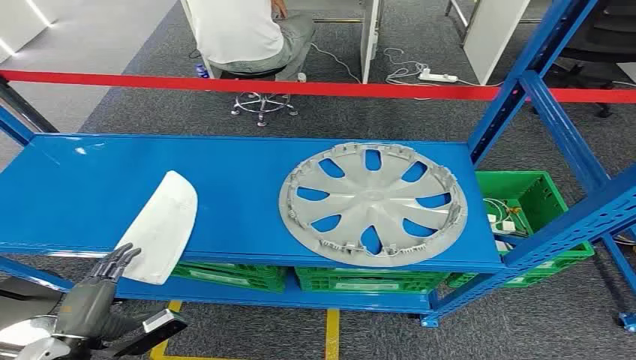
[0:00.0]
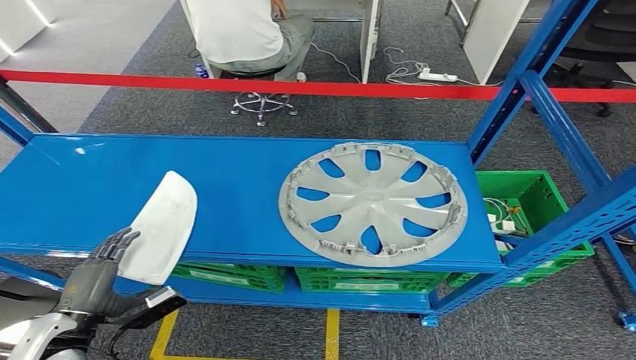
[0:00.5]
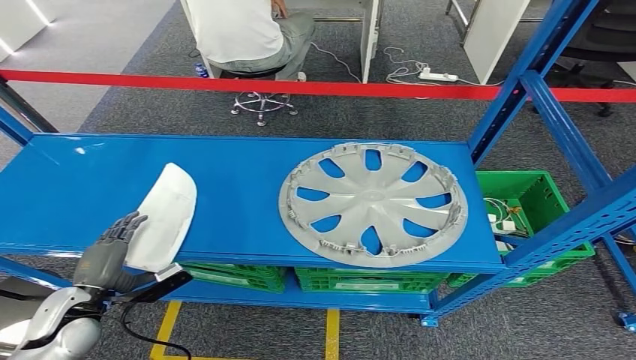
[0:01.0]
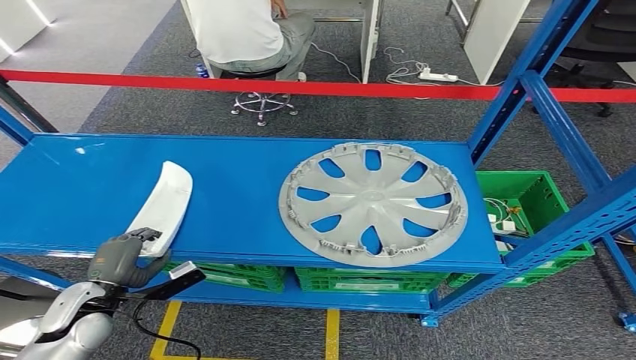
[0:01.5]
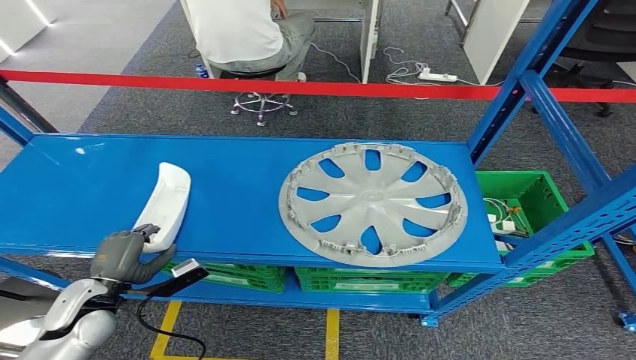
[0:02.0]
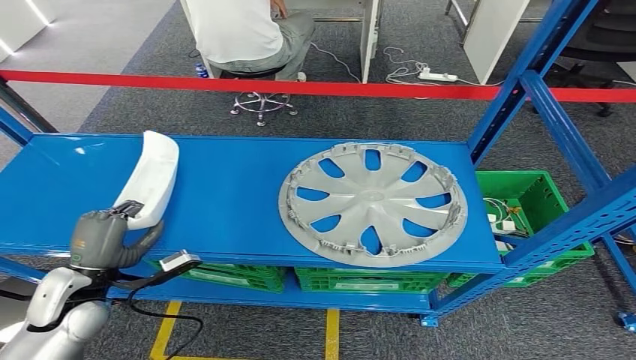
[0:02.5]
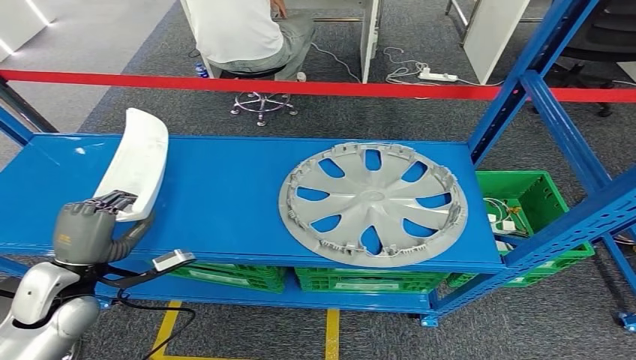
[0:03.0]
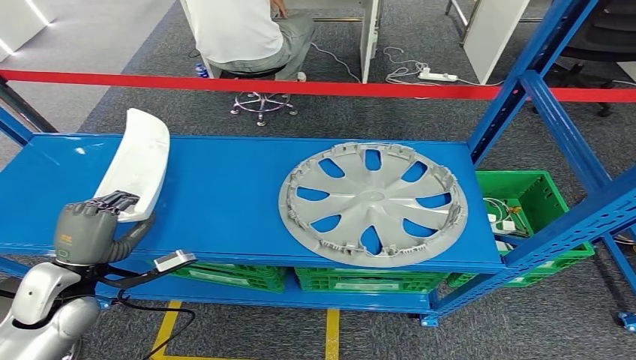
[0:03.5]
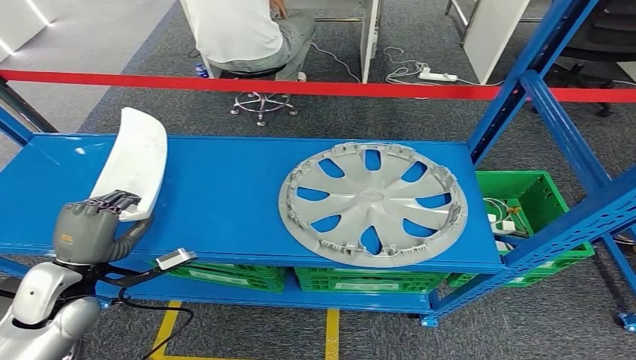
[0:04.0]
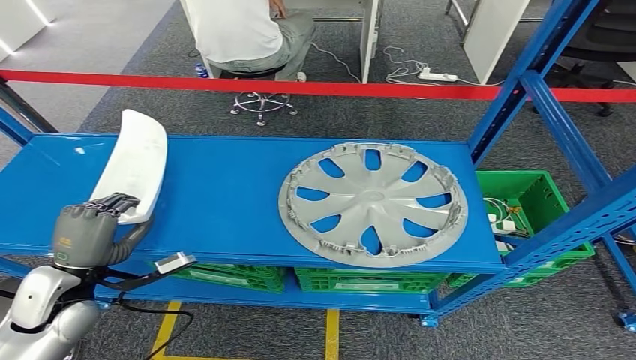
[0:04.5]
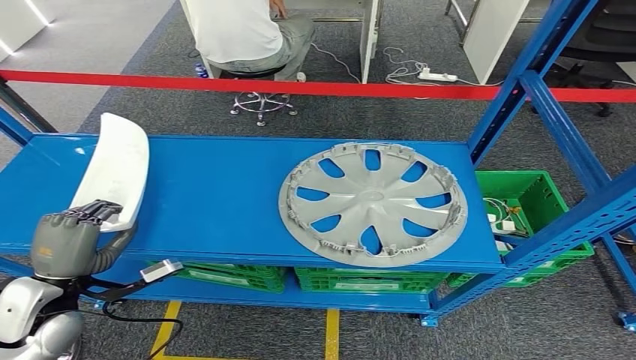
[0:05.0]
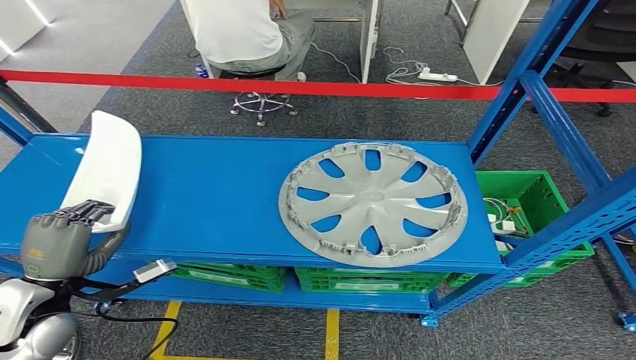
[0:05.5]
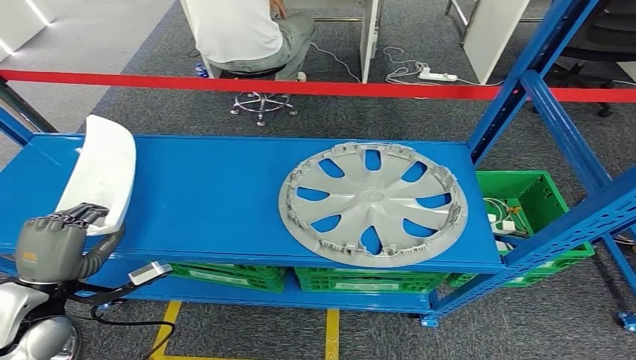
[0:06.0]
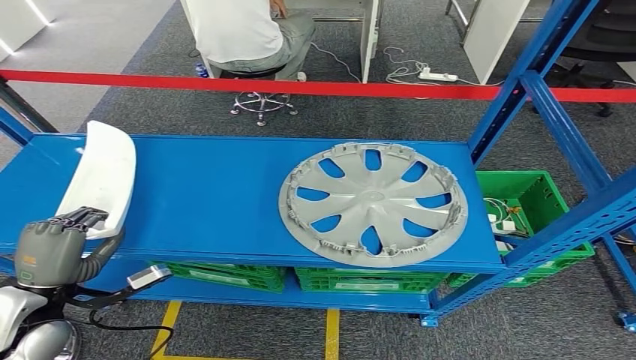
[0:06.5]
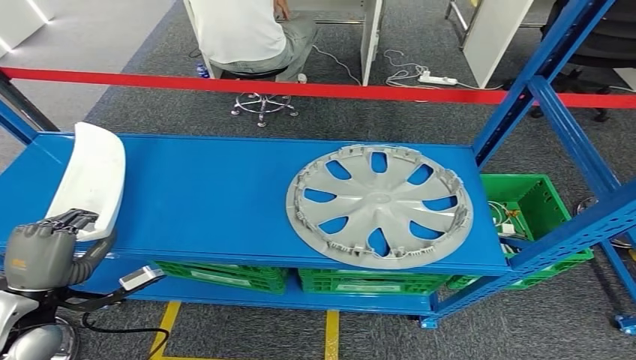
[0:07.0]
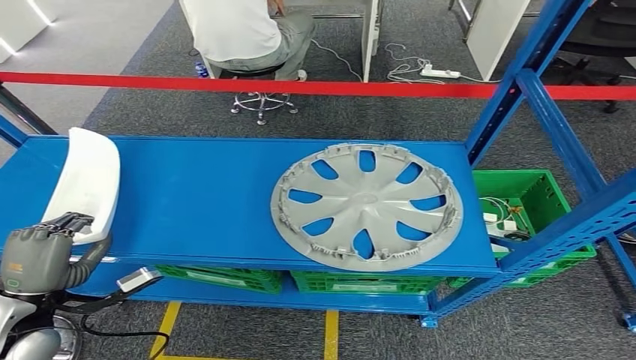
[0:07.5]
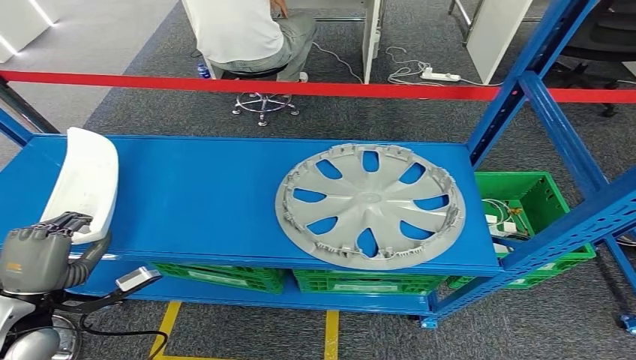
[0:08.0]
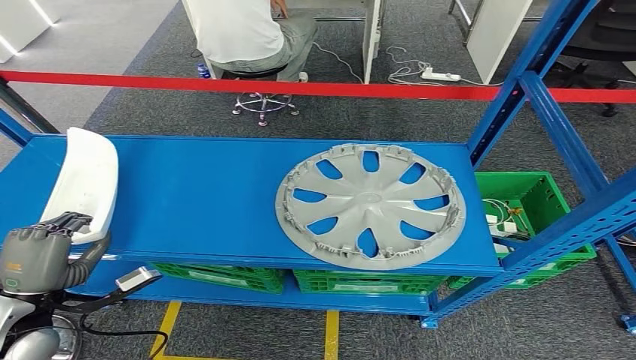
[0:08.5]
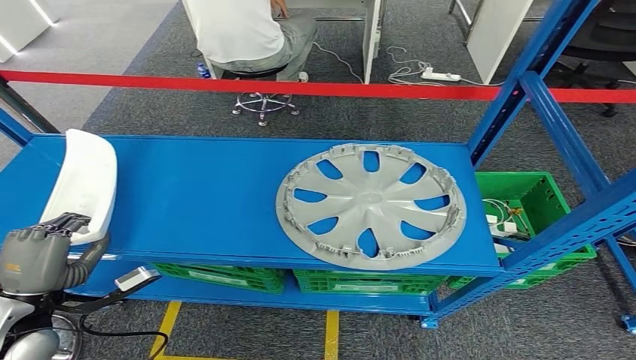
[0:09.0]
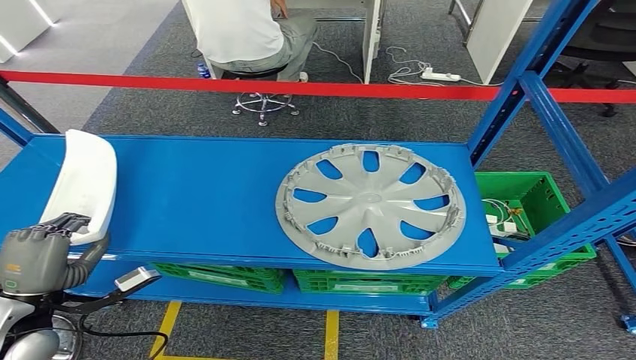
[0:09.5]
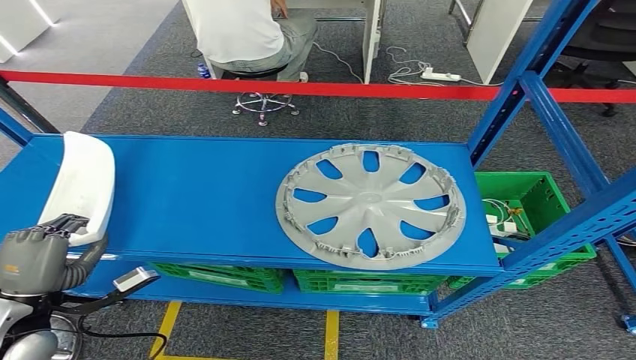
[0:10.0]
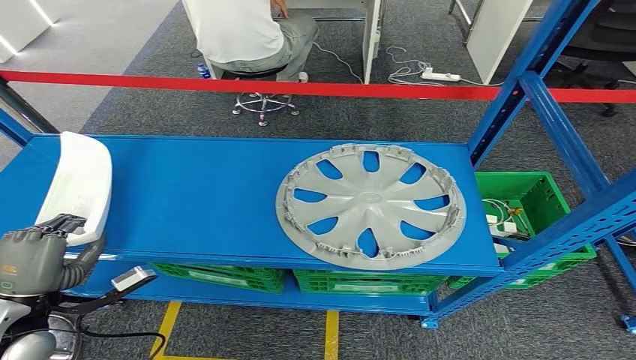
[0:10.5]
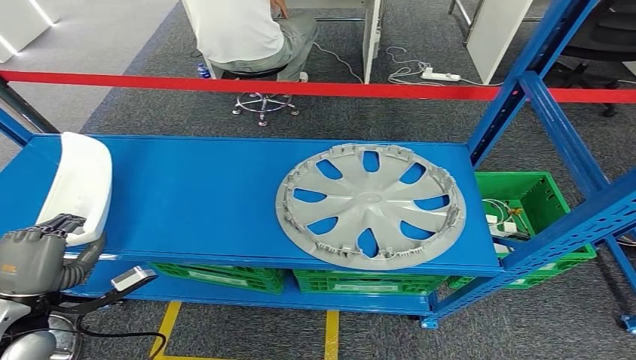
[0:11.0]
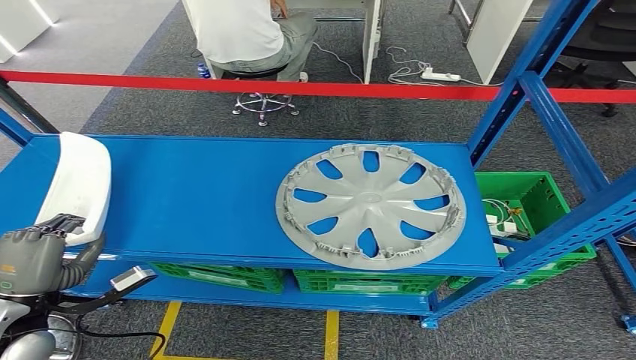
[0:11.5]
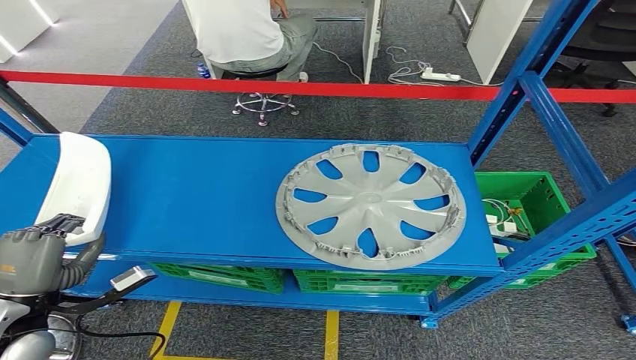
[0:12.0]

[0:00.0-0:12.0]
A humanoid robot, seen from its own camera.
Step, 0:00.0 to 0:08.0: Pick up the small component from the shelf.
0:02.0 to 0:04.0: The left hand heads upward, covering some 10 cm.
0:04.0 to 0:06.0: The hands stay close to where they were, moving slightly.
0:06.0 to 0:08.0: The hands move only a little.
0:08.0 to 0:12.0: Both hands stay about where they are.

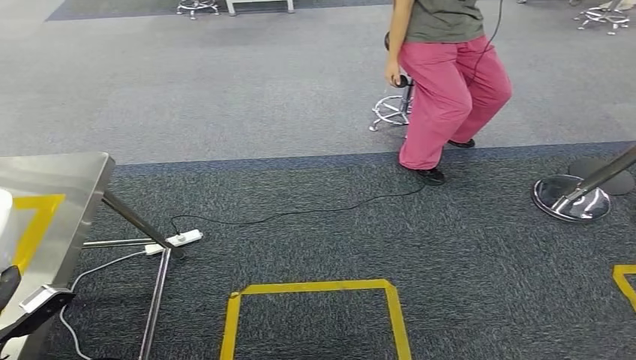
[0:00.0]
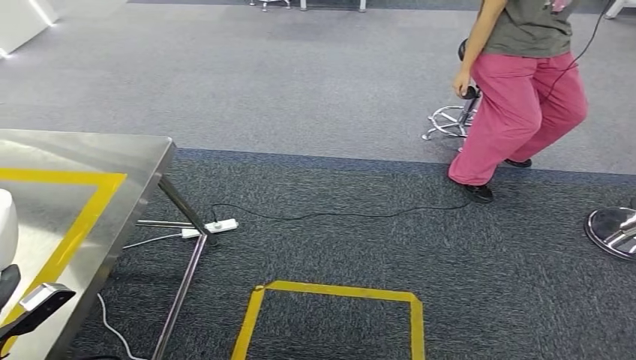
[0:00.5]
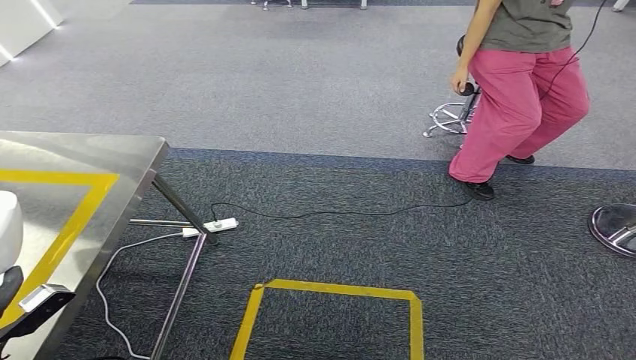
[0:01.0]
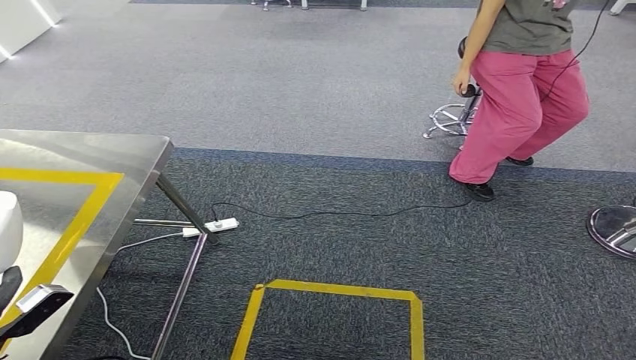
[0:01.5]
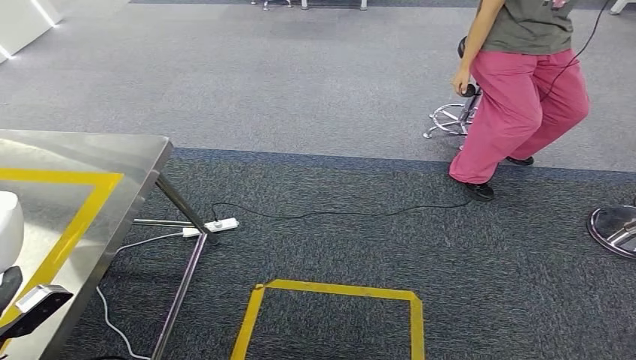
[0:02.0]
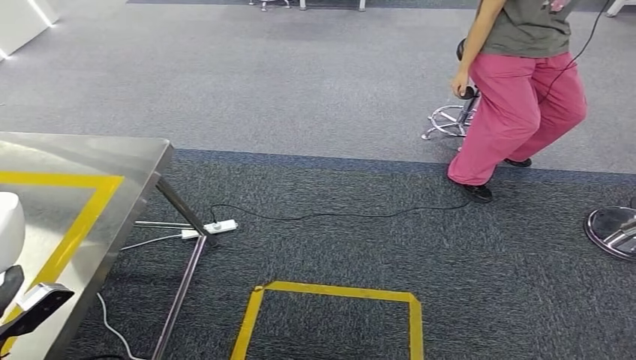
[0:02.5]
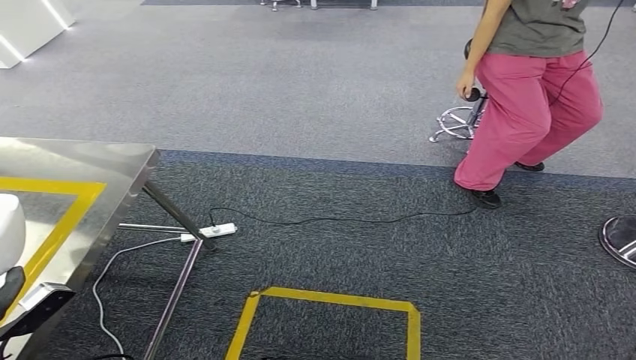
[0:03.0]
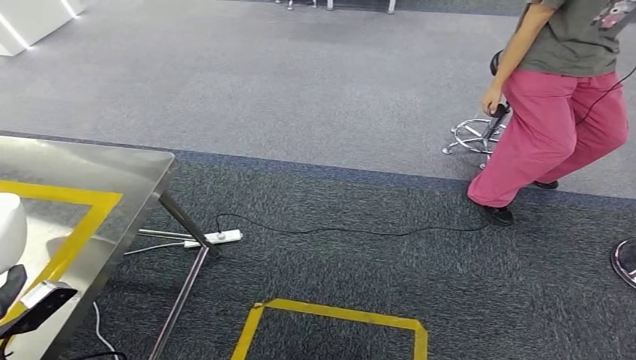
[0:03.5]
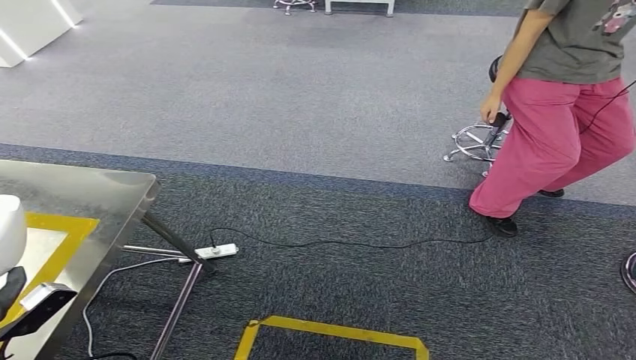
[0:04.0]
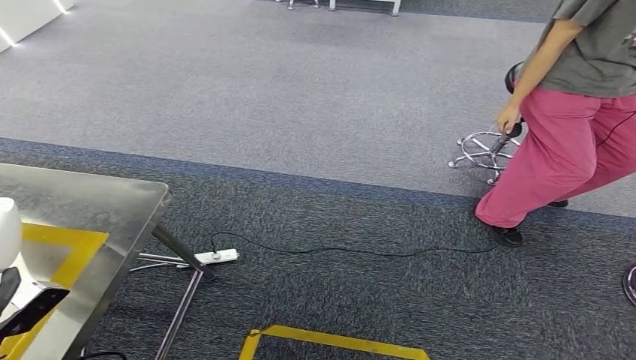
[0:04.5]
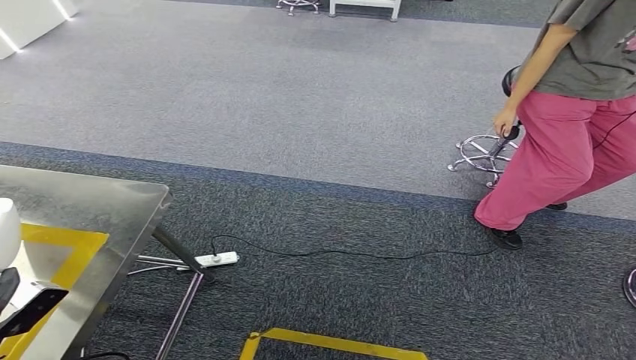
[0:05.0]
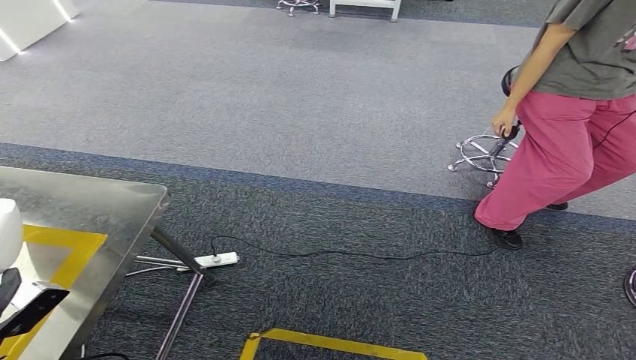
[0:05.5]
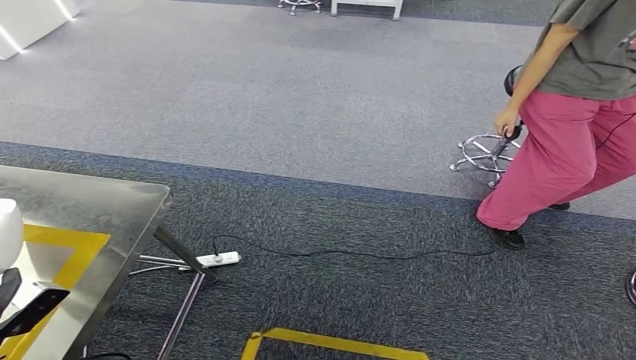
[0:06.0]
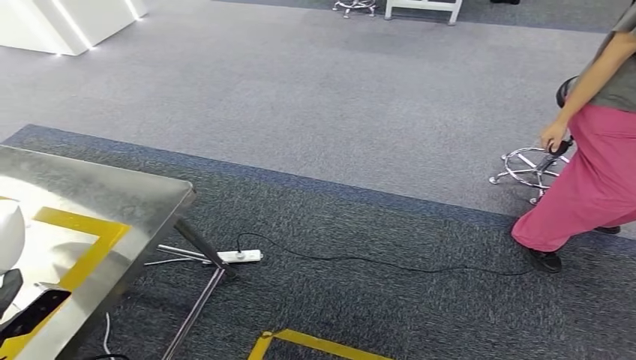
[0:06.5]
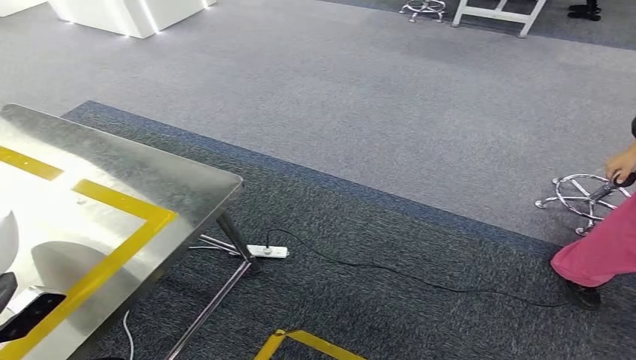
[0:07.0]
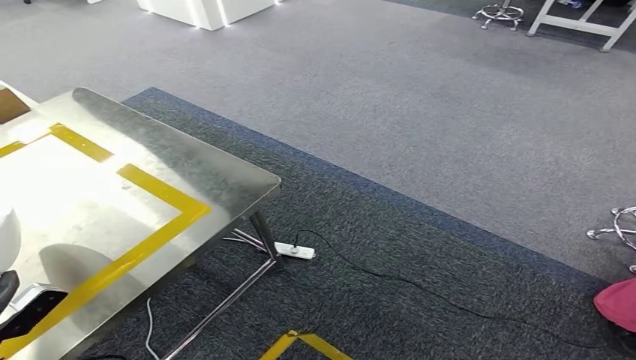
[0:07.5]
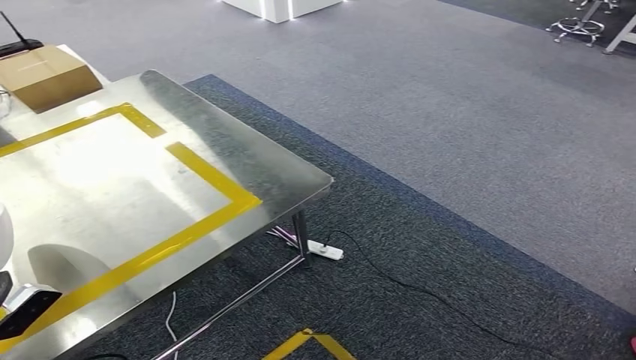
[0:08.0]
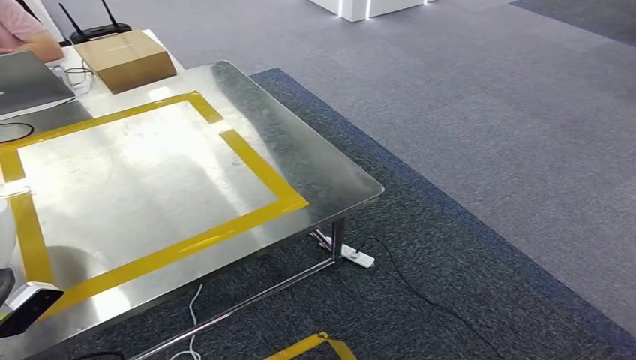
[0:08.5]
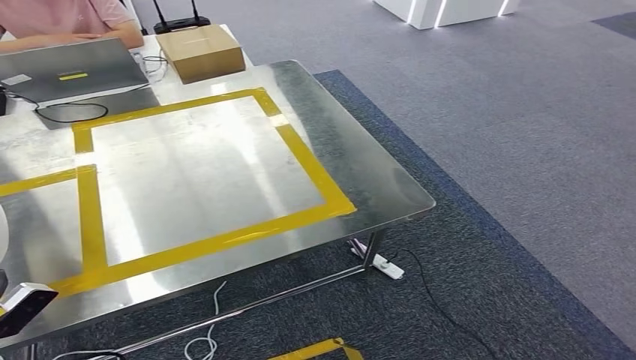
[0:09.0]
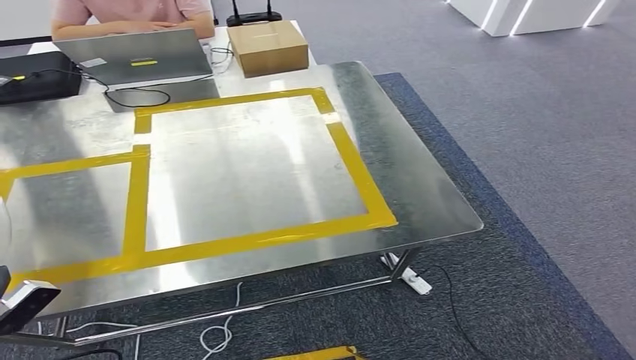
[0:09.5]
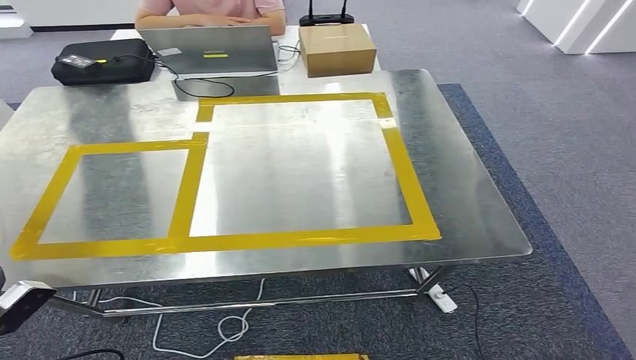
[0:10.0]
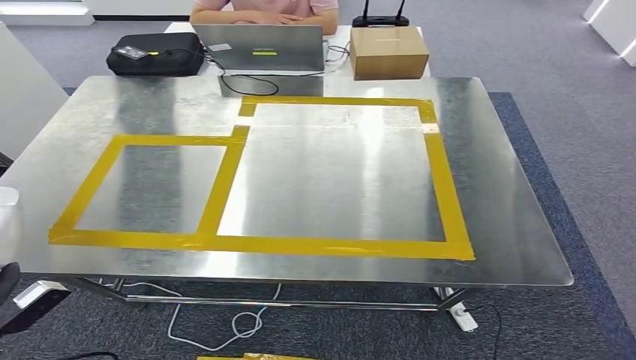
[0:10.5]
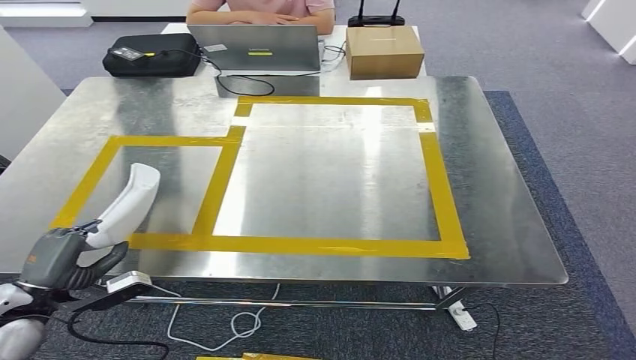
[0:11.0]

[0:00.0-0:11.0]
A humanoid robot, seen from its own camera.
Step, 0:00.0 to 0:09.0: Move the small component to the workbench.
